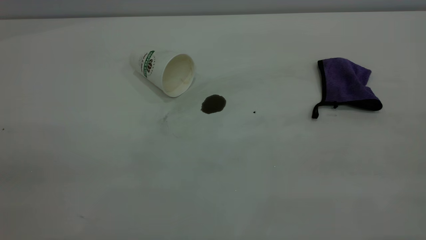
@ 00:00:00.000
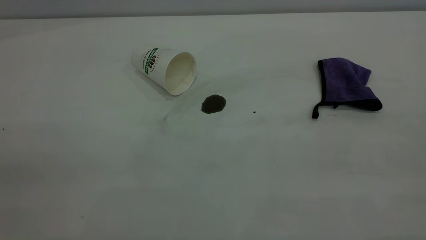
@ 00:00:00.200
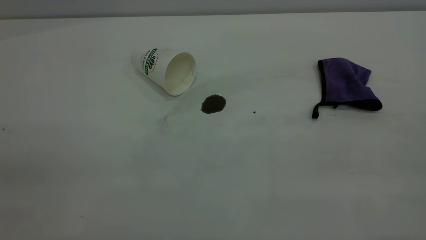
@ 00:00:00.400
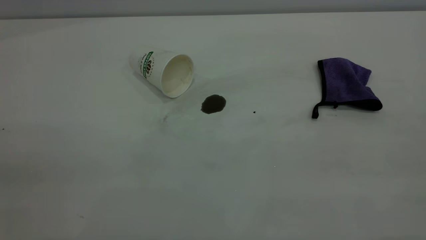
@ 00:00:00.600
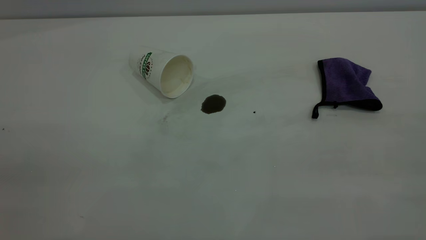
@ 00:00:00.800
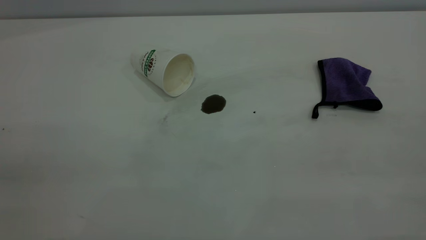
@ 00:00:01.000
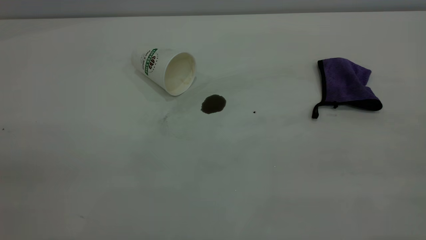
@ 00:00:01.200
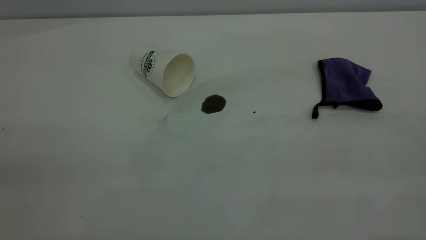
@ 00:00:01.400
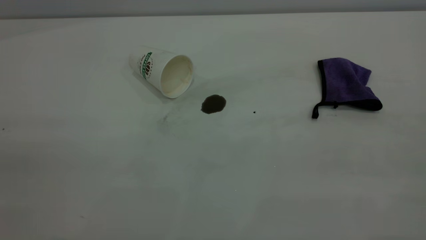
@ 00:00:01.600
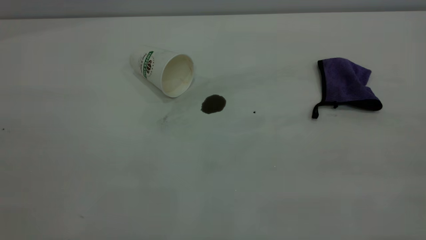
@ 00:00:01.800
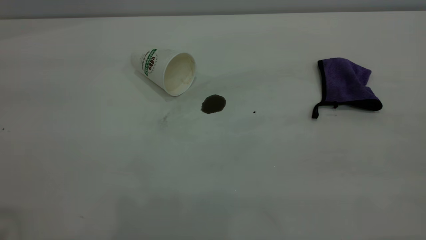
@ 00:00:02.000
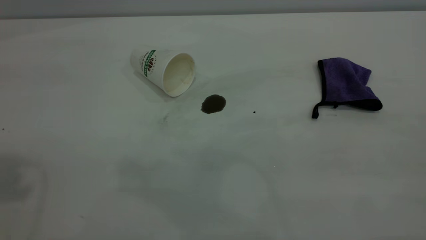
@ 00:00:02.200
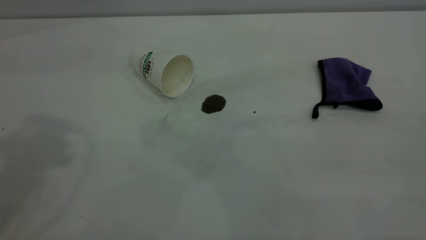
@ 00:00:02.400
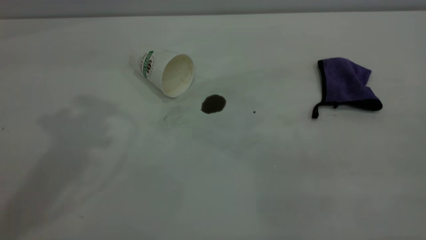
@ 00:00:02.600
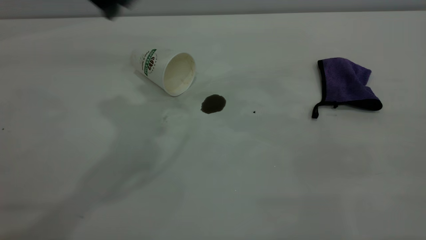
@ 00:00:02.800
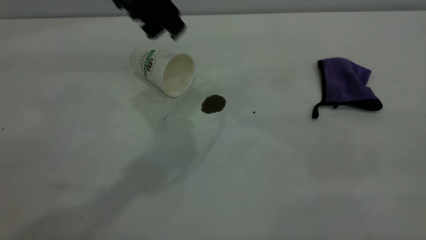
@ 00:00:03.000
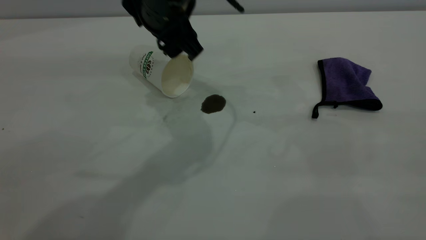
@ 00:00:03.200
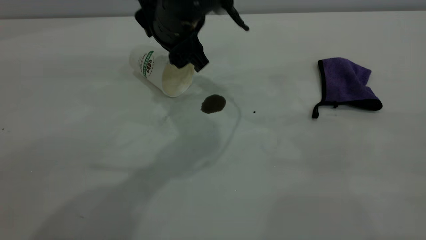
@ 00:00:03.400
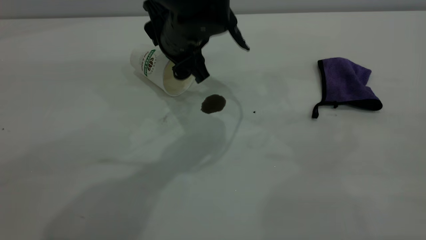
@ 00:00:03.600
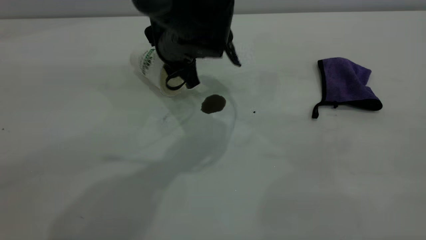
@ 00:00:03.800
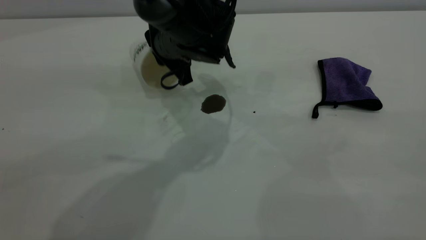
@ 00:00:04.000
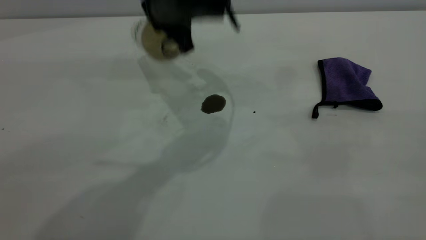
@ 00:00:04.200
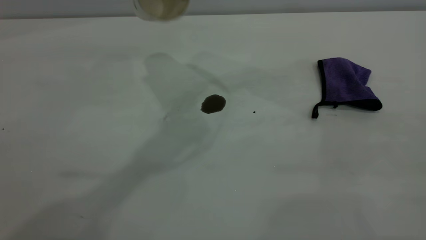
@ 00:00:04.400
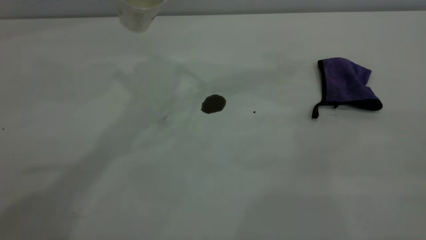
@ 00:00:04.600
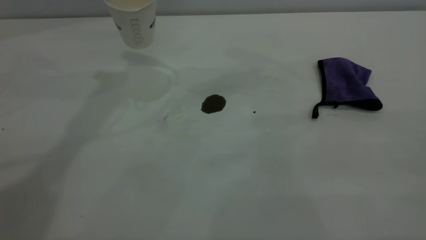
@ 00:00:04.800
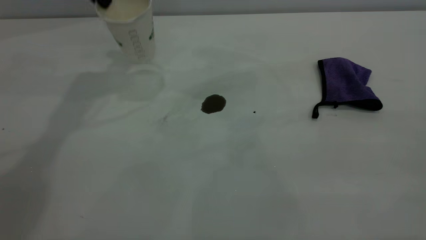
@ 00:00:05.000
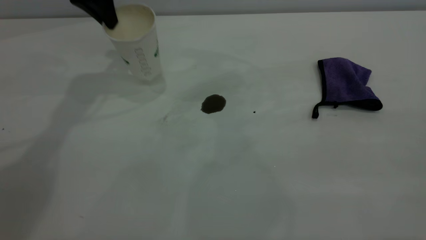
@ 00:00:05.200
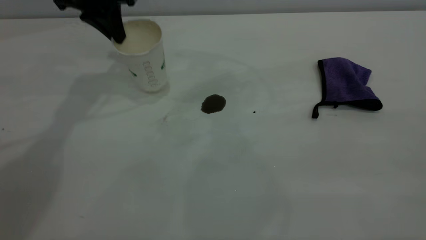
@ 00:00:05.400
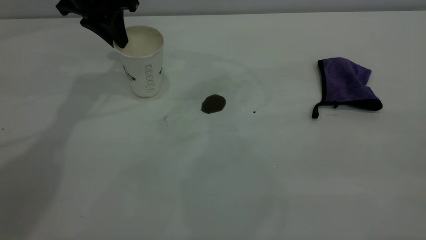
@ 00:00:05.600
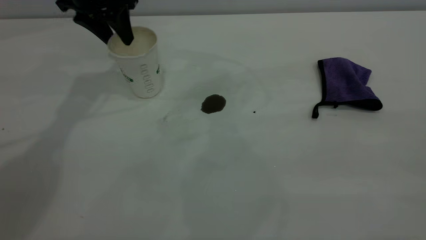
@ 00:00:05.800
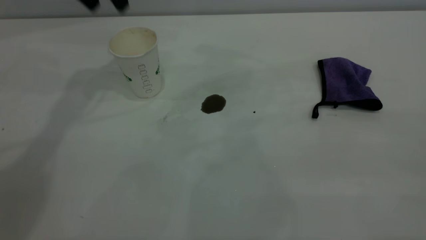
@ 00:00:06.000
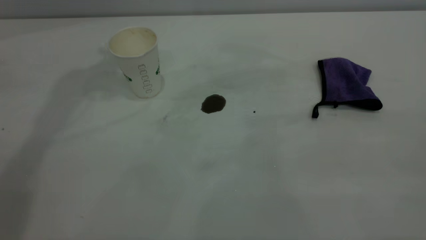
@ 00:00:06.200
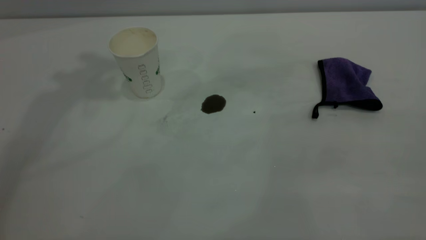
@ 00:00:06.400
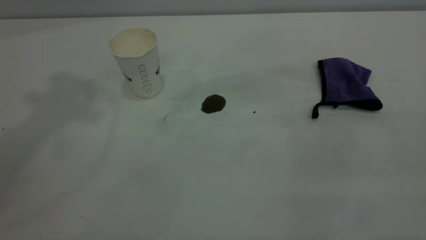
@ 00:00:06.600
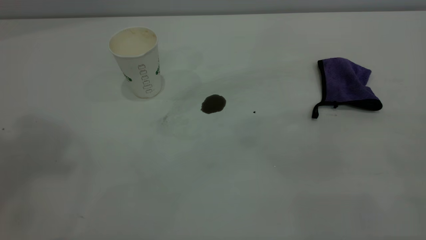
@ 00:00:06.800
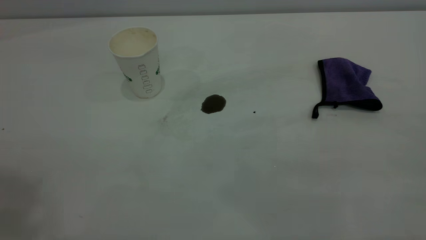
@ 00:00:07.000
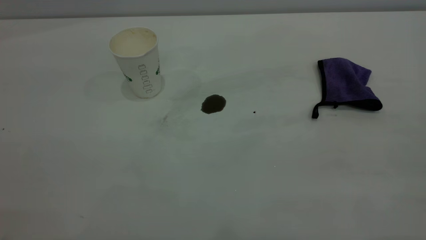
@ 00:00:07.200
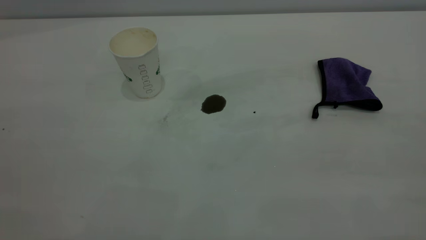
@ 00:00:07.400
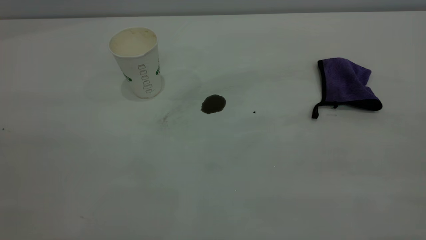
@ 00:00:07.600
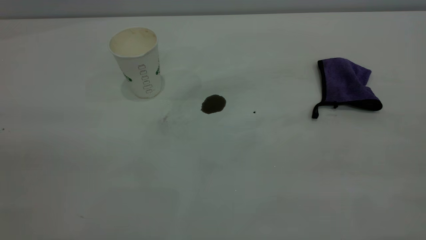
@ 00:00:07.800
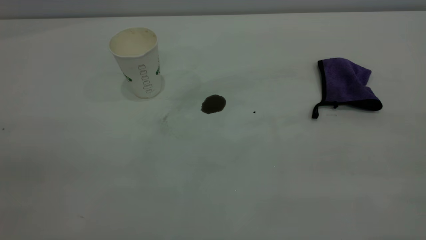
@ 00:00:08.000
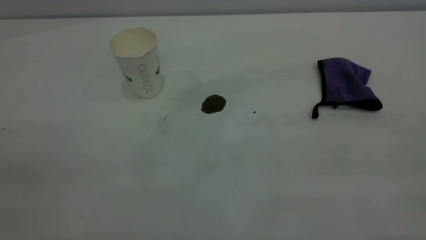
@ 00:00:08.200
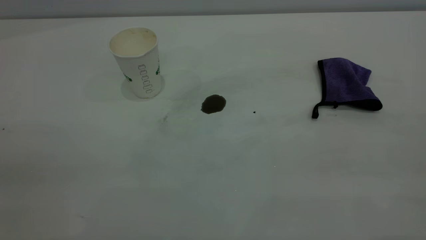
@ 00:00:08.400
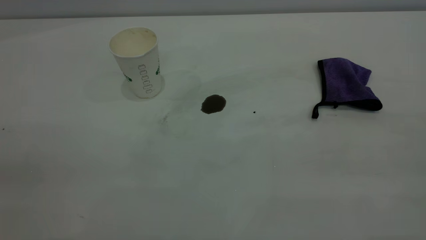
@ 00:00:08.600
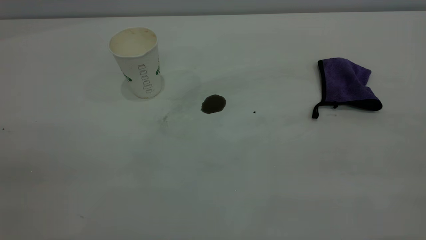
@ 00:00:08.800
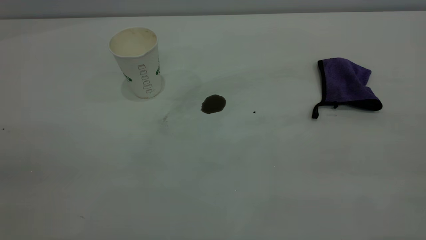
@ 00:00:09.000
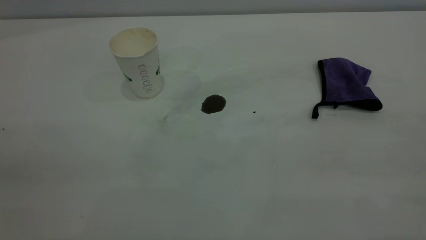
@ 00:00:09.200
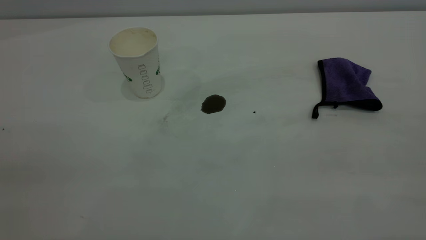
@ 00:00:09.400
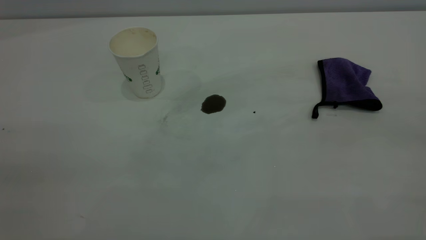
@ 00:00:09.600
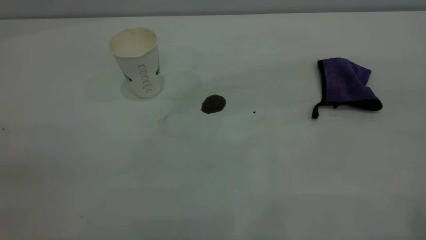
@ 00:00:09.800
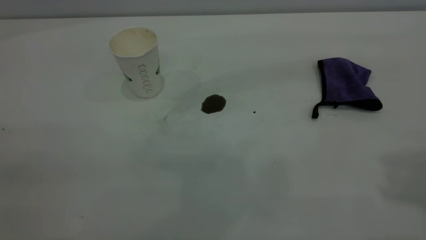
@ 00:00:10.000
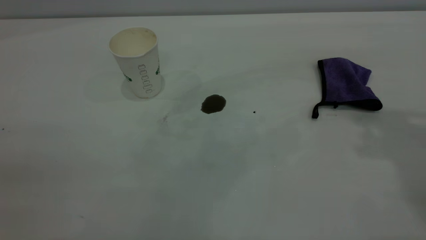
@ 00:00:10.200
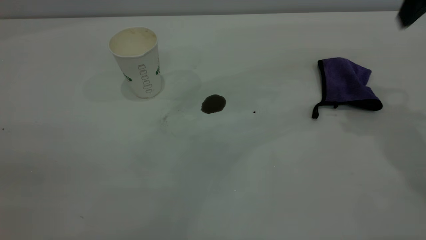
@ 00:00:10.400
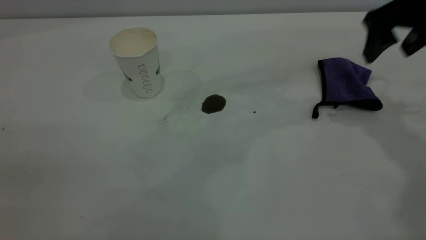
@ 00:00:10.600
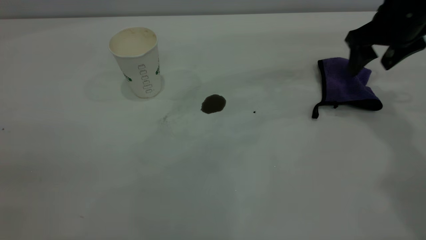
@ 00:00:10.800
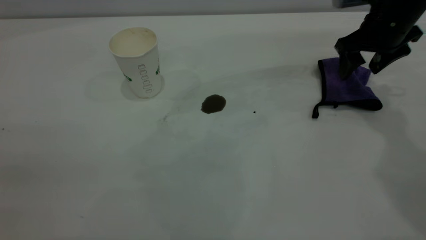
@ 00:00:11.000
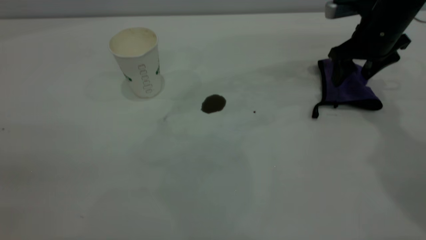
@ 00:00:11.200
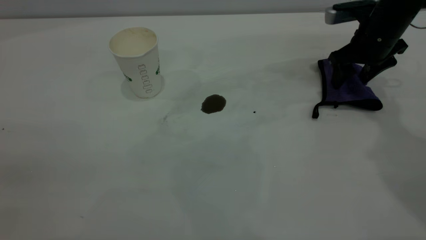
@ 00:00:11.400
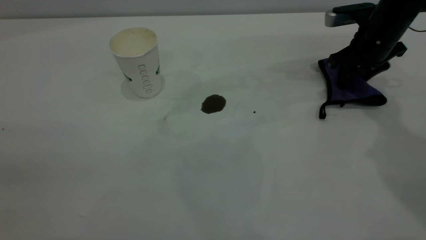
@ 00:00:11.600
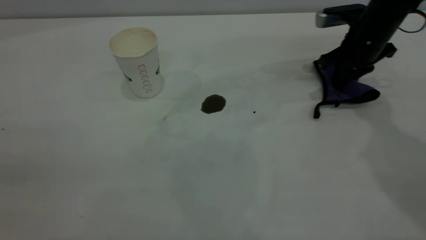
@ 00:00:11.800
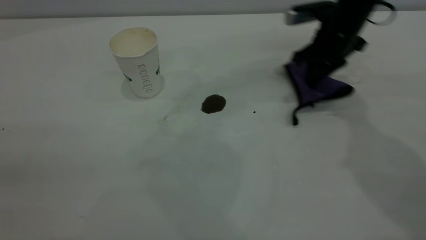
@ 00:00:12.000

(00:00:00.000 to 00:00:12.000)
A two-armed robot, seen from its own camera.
Task of the whole recording: the left gripper pick up the fallen cup and place it upright, the right gripper grasp the purple rag and wipe the coffee stain on the table, the right gripper put the purple rag back in its original position.
Step, 00:00:00.000 - 00:00:05.800: Stand the paper cup upright.
00:00:01.600 - 00:00:03.000: The left gripper shifts roughly 50 cm forward, to the right and downward.
00:00:03.000 - 00:00:04.400: The left gripper travels downward and back again, about 10 cm each way, and closes its fingers.
00:00:04.400 - 00:00:06.000: The left gripper shifts roughly 15 cm to the left and forward, and opens.
00:00:10.400 - 00:00:12.000: The right gripper goes roughly 20 cm downward, forward and to the left, and closes its fingers.

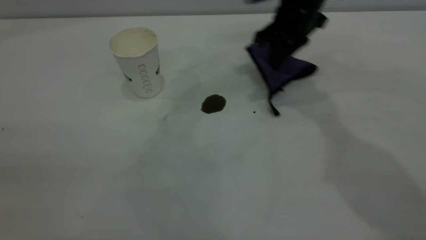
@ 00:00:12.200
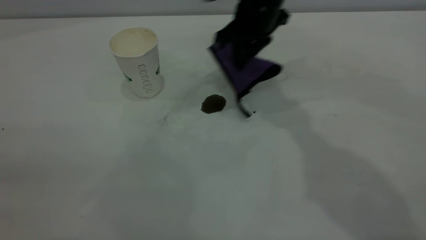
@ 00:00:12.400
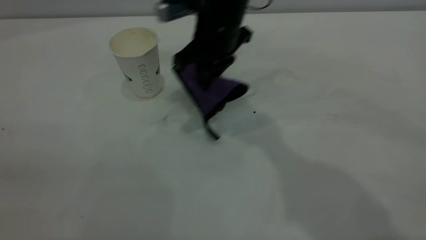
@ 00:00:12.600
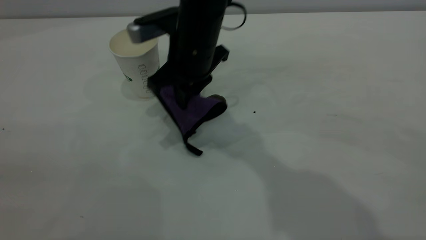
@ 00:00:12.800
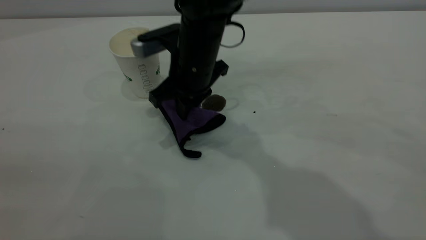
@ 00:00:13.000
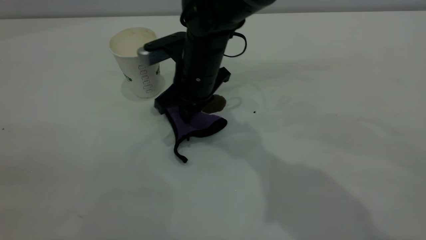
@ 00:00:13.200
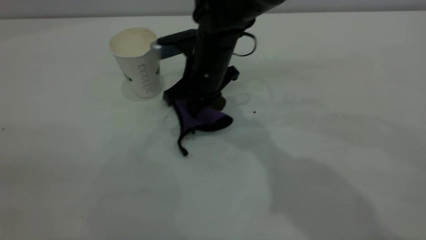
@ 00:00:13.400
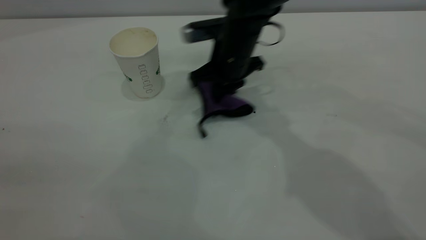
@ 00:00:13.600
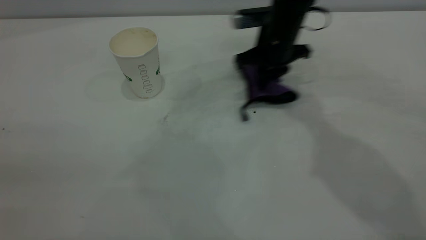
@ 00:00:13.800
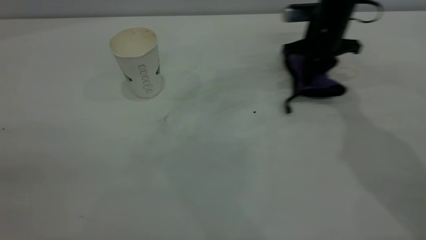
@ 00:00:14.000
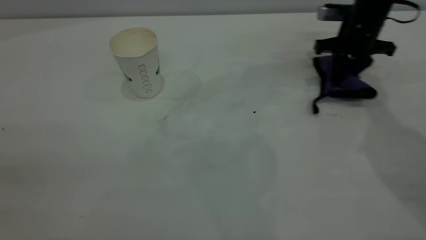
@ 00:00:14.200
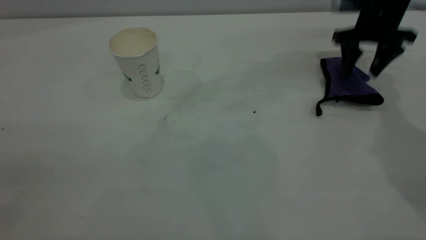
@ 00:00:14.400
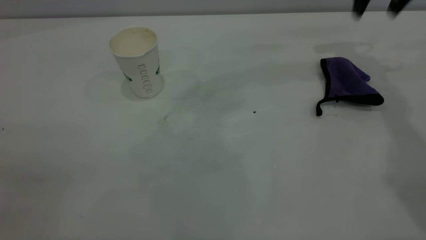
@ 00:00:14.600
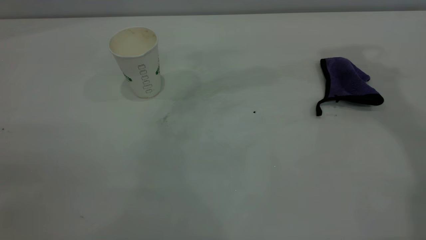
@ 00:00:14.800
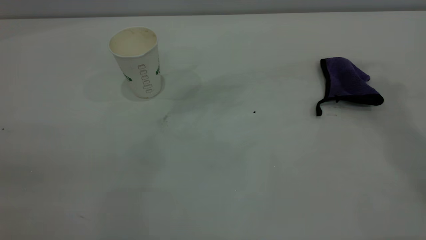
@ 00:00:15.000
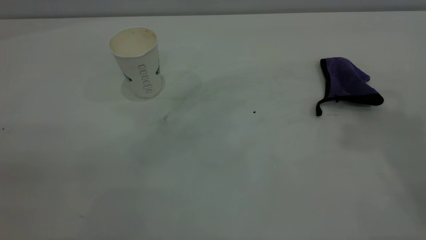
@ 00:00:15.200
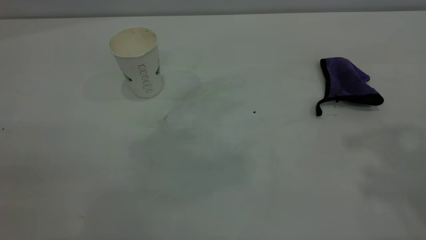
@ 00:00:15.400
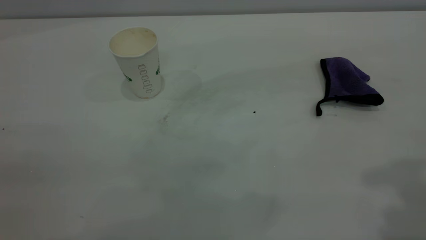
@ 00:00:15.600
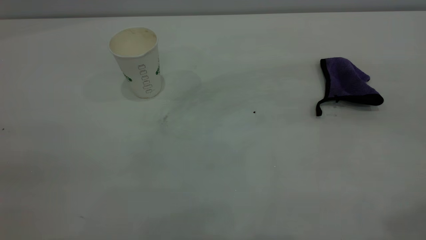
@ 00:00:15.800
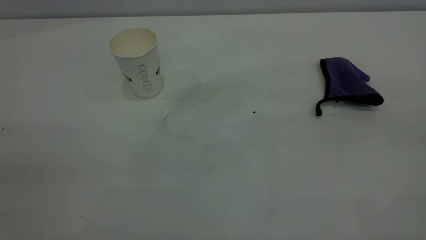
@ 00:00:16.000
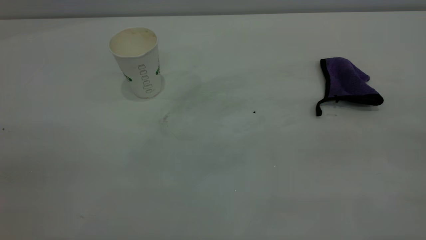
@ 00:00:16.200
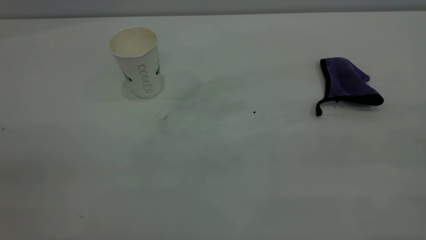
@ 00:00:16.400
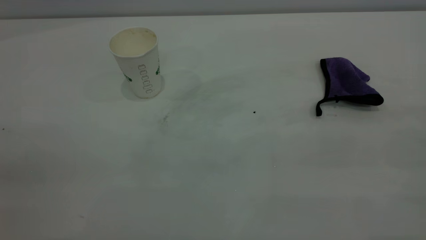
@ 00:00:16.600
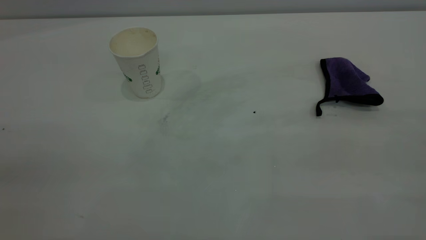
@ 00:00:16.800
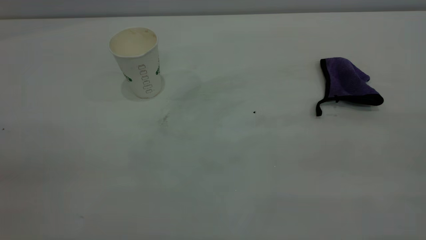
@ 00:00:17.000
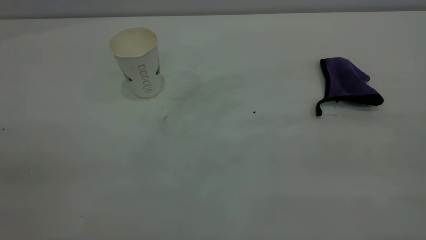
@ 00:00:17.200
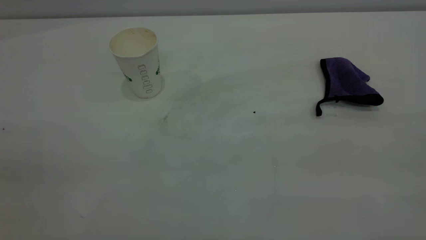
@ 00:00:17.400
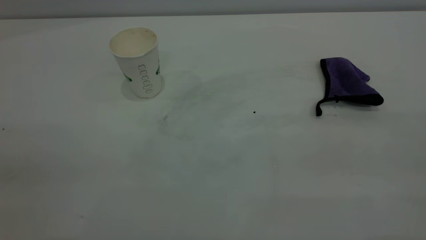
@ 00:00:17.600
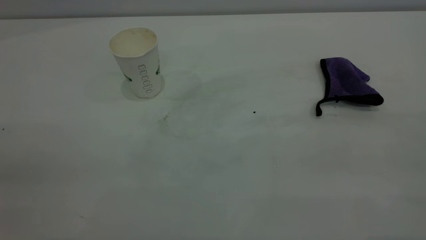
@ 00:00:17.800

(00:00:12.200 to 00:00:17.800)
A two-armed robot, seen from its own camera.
Task of the whole recording: the left gripper pick up the fallen cup and place it upright, the right gripper grasp the purple rag and wipe the coffee stain on the table, the right gripper put the purple rag back in its original position.
Step, 00:00:12.200 - 00:00:14.400: Wipe the stains off the table with a rag.
00:00:12.200 - 00:00:13.600: The right gripper heads to the left and downward, covering approximately 10 cm.
00:00:13.600 - 00:00:15.000: The right gripper goes about 40 cm upward and to the right, and opens its fingers.
